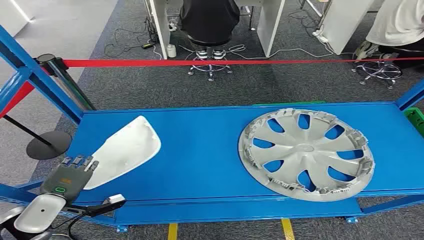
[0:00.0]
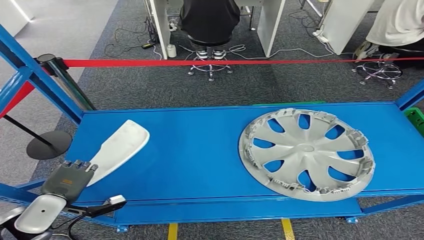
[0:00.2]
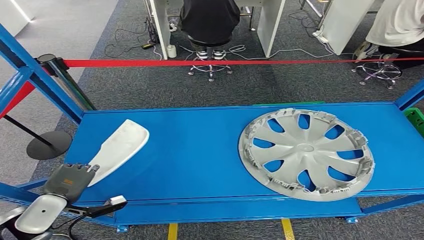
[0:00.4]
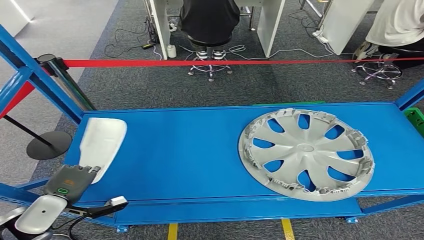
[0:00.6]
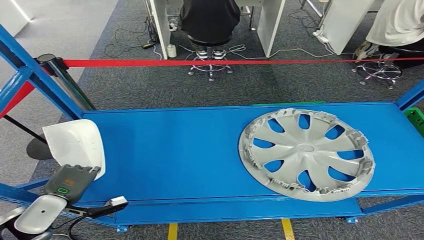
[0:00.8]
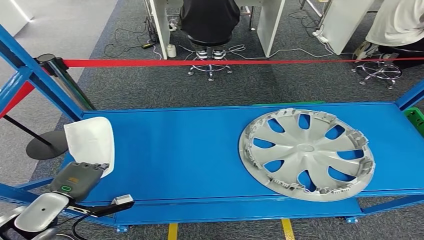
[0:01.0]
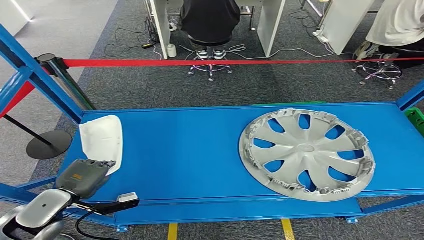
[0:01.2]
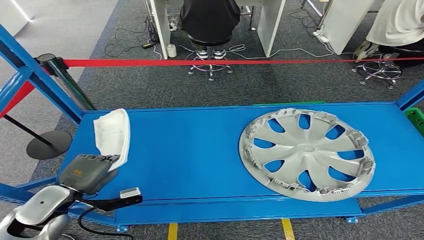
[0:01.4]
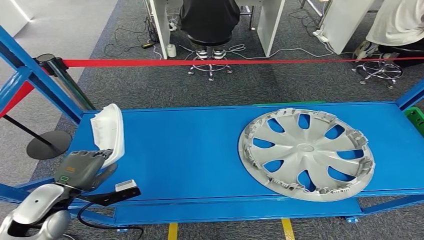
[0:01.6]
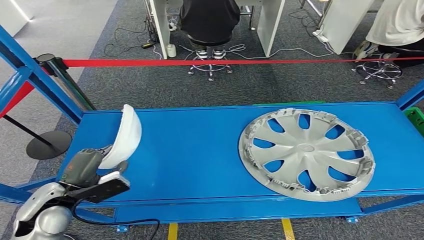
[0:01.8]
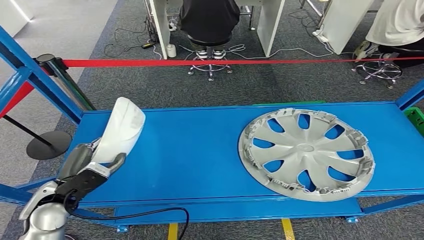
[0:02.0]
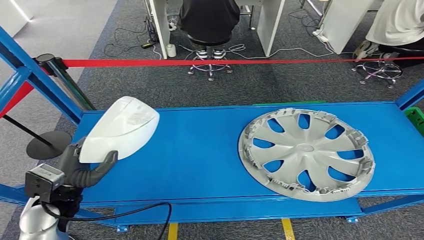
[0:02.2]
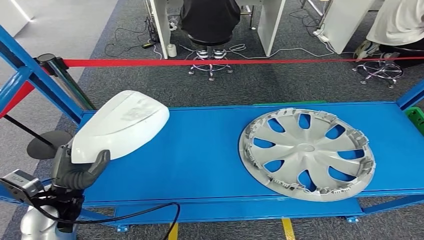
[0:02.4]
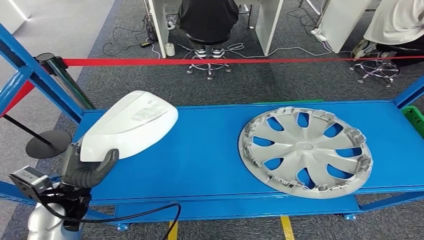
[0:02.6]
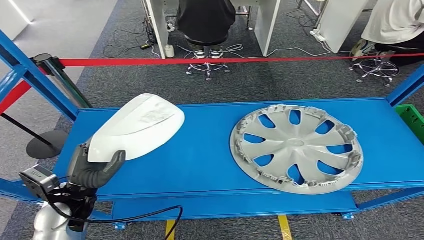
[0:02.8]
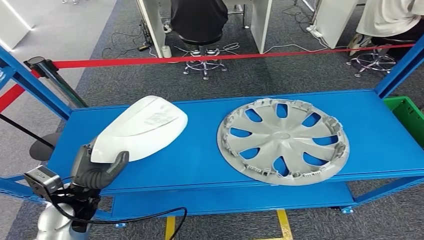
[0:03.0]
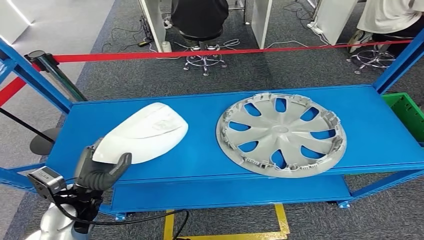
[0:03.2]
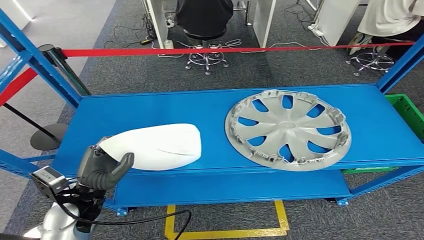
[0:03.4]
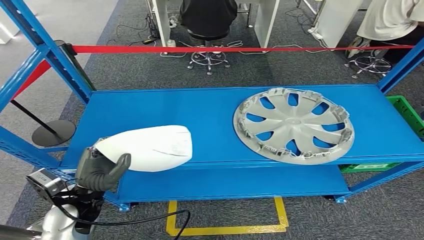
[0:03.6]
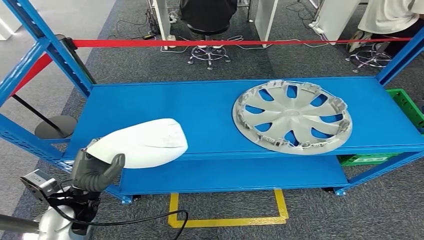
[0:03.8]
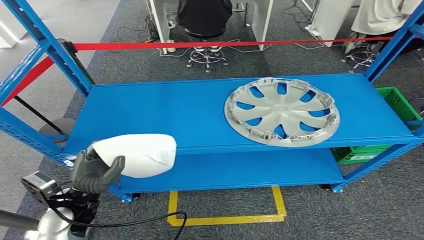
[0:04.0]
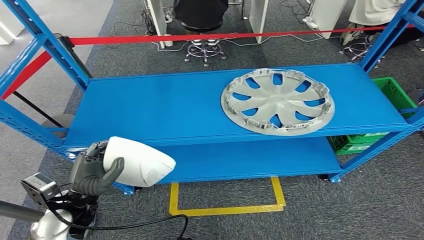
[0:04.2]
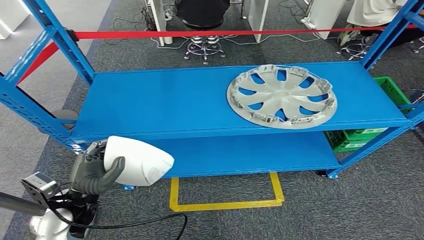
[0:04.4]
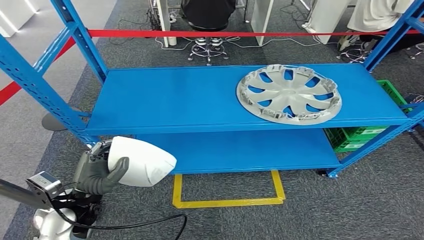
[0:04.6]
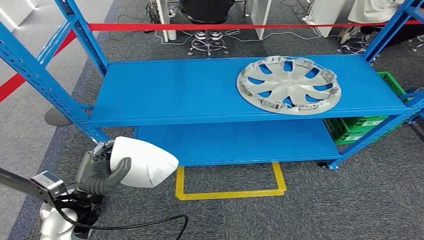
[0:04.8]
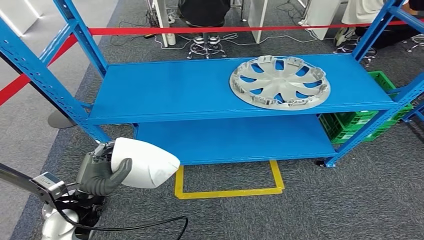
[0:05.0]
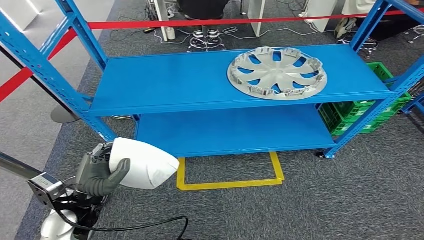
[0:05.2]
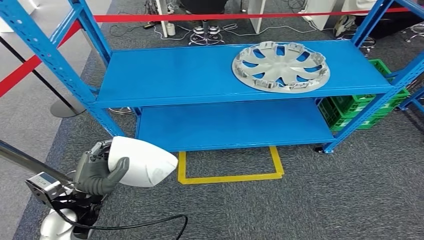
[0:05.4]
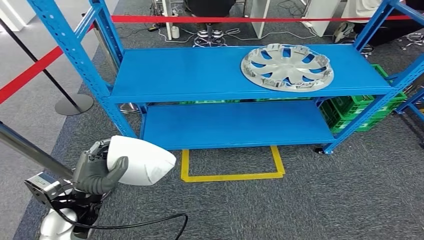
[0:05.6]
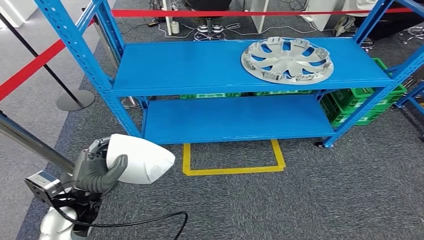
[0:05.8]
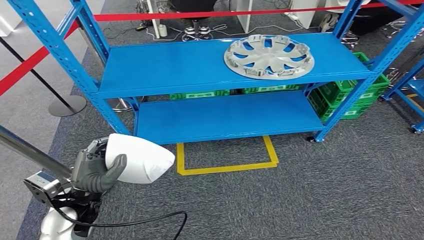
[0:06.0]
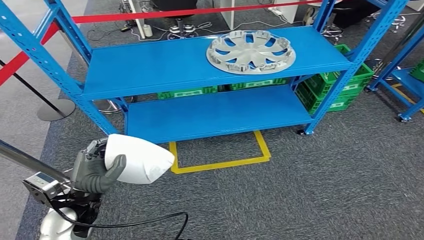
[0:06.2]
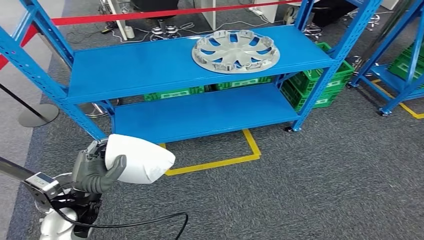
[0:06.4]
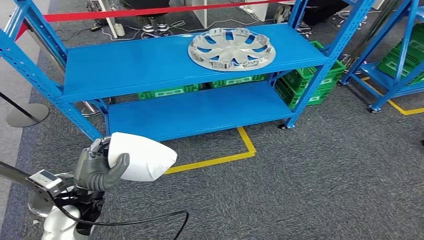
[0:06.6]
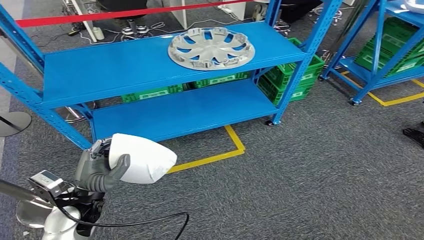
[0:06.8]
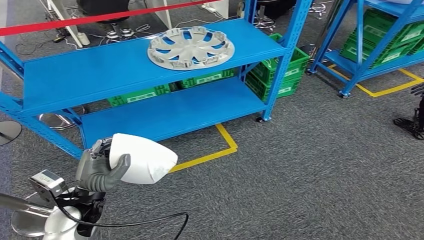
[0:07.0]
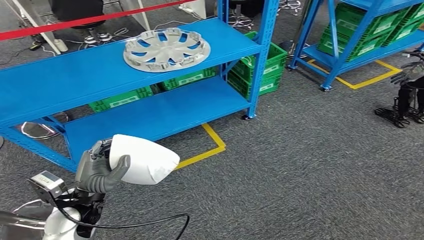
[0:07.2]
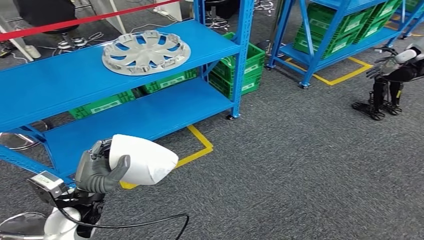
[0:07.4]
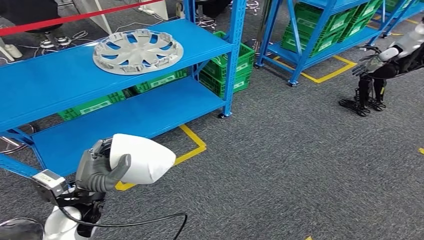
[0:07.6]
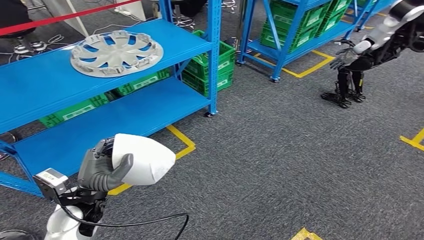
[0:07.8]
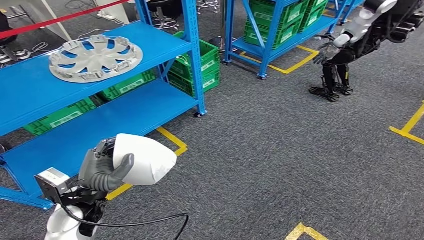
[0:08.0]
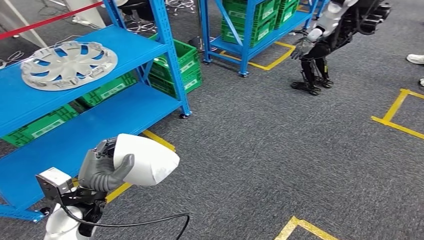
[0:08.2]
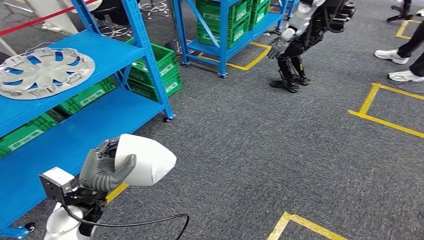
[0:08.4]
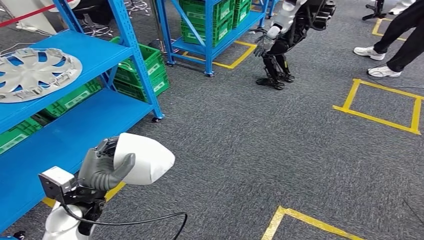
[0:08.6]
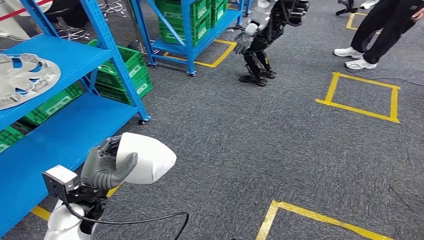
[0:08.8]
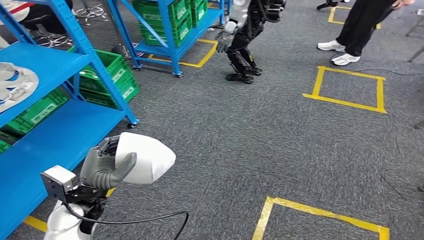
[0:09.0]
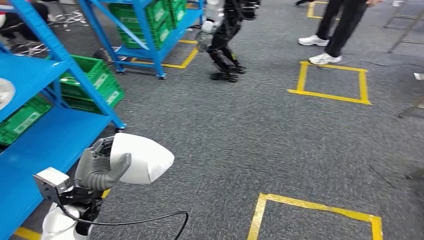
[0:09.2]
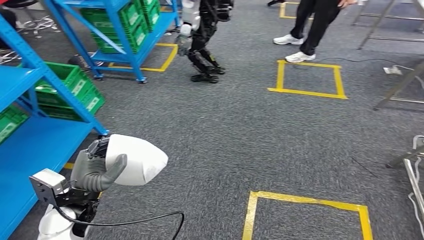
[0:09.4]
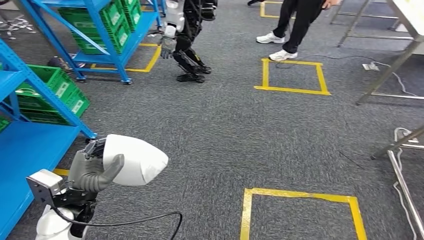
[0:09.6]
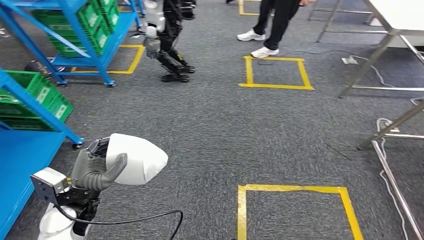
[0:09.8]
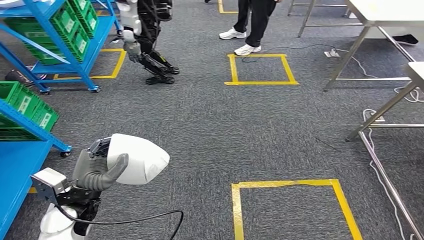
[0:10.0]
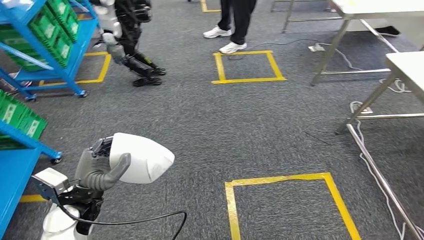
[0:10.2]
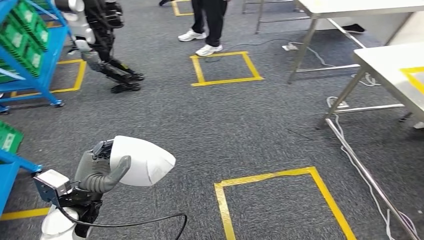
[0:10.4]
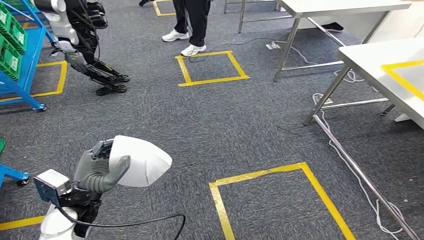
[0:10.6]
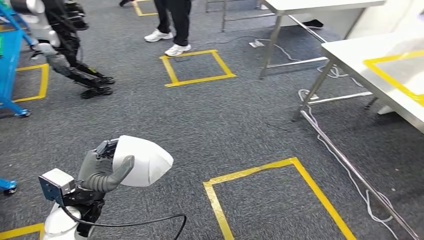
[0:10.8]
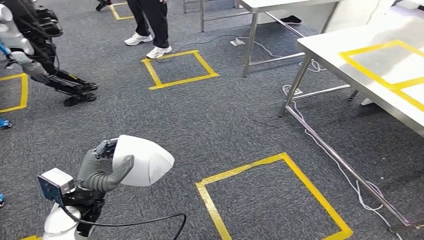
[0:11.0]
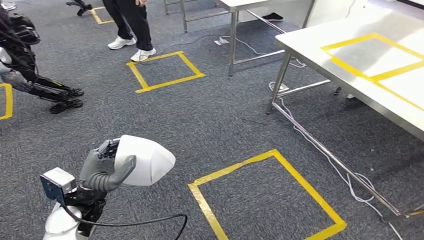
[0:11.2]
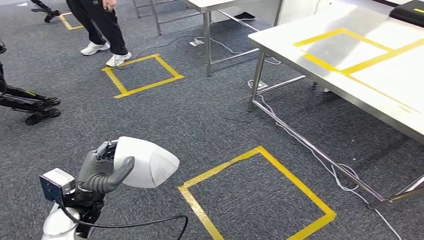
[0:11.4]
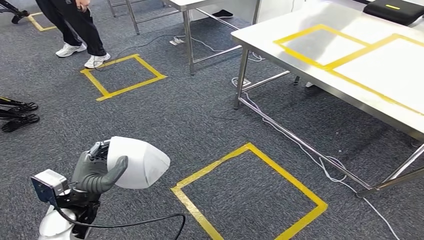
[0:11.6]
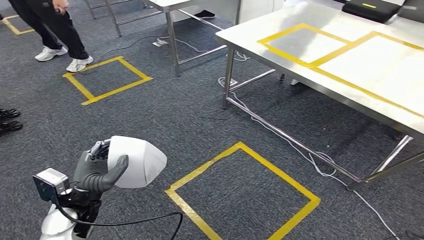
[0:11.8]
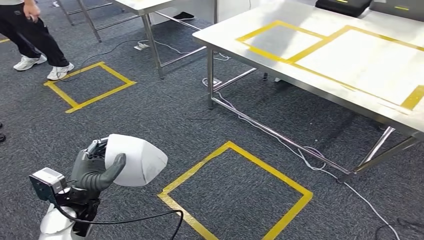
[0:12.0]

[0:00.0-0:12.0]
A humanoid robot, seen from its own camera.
Step, 0:00.0 to 0:04.0: Take small components from the rack.

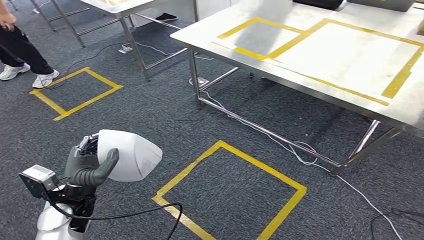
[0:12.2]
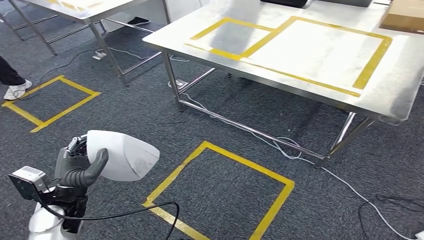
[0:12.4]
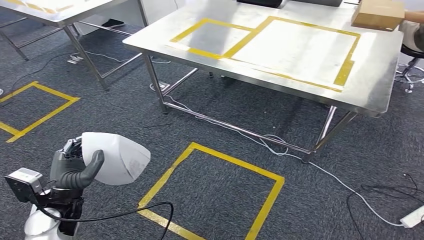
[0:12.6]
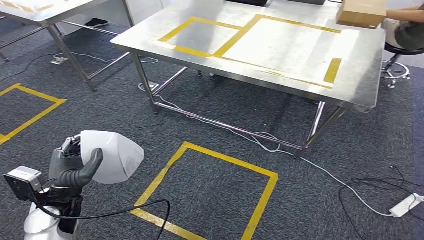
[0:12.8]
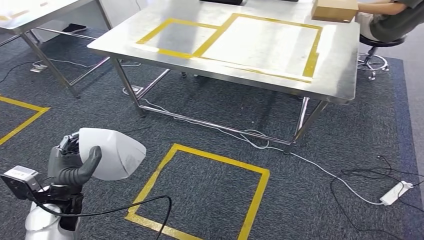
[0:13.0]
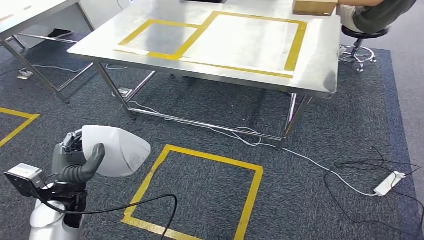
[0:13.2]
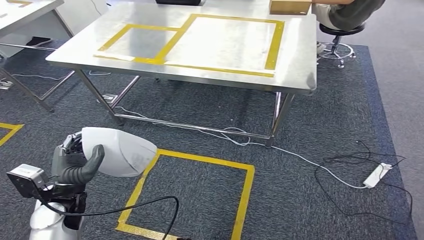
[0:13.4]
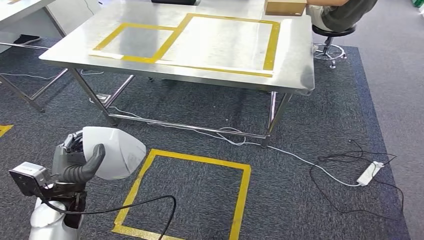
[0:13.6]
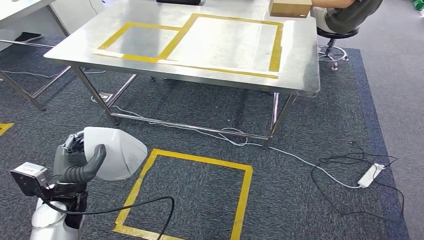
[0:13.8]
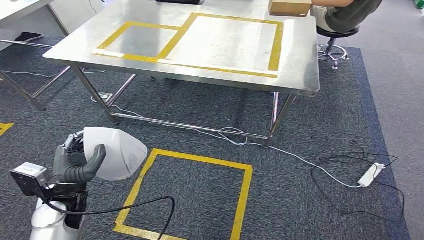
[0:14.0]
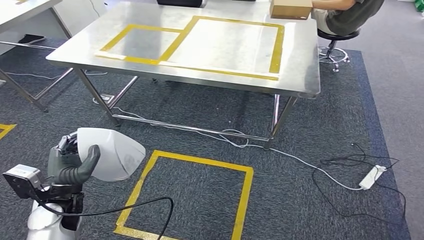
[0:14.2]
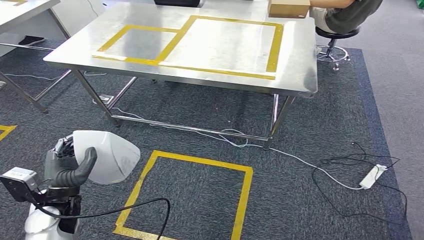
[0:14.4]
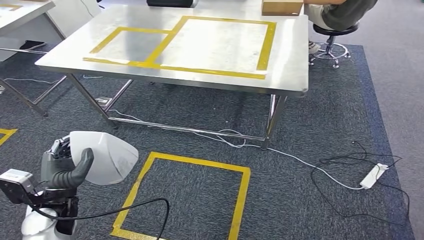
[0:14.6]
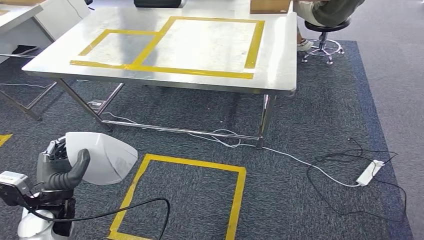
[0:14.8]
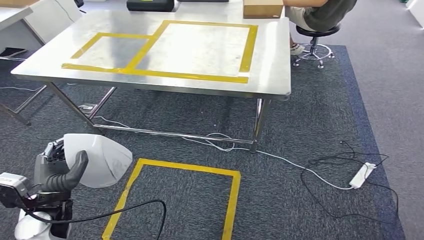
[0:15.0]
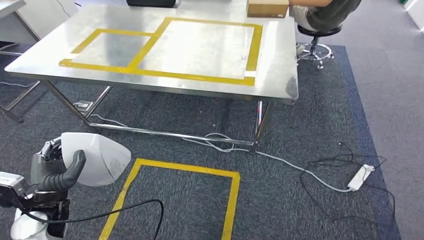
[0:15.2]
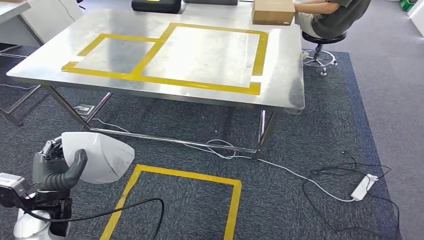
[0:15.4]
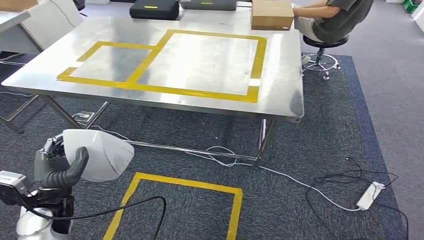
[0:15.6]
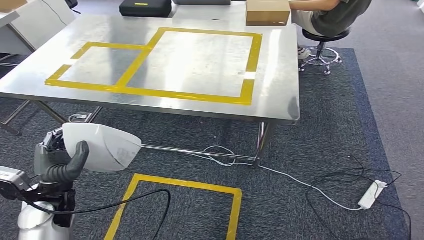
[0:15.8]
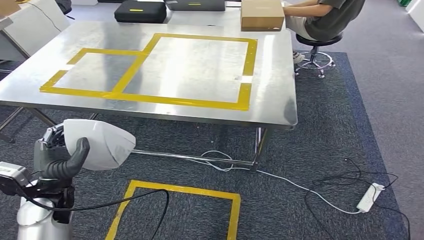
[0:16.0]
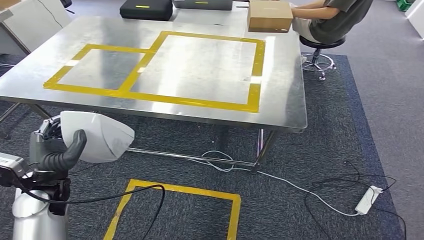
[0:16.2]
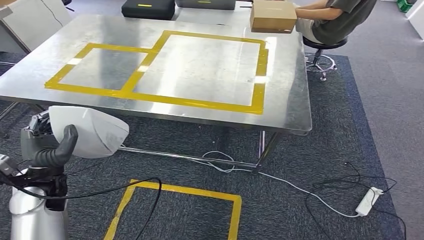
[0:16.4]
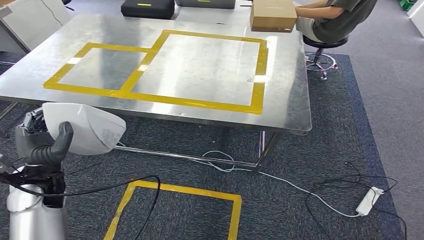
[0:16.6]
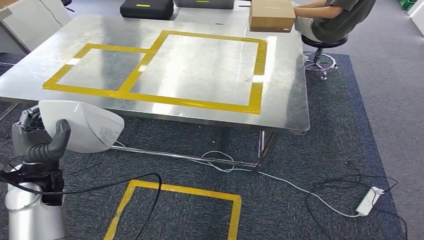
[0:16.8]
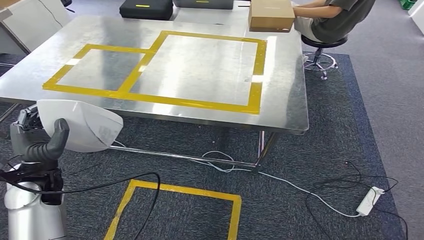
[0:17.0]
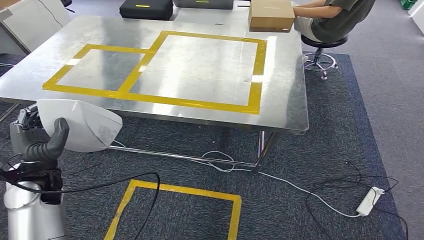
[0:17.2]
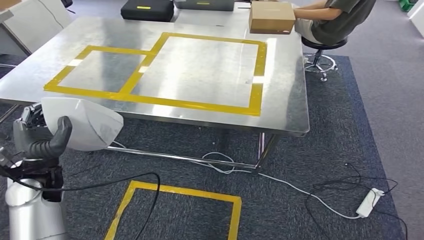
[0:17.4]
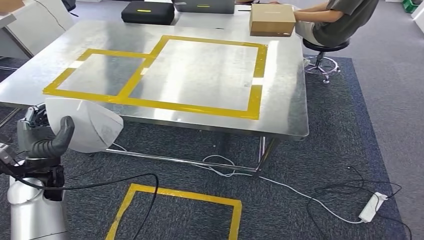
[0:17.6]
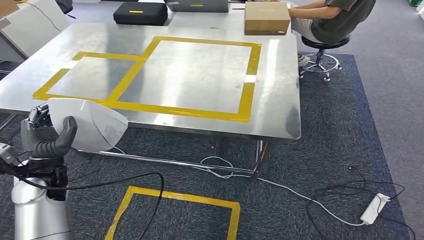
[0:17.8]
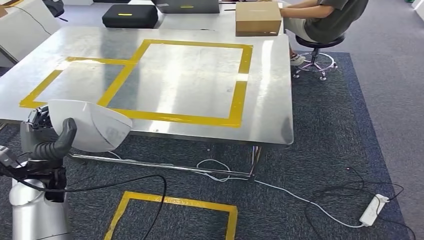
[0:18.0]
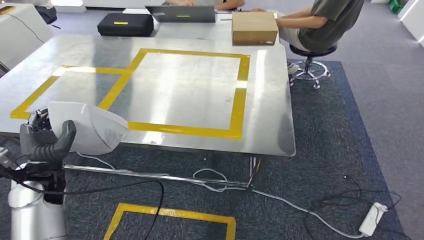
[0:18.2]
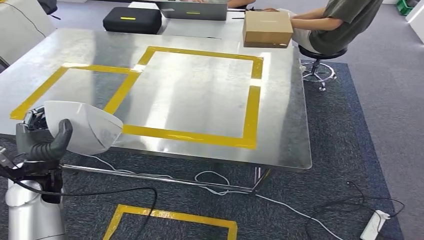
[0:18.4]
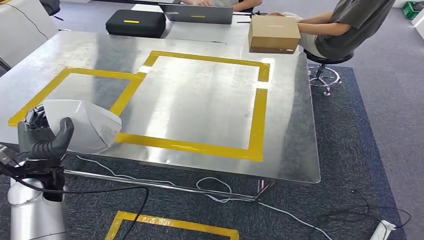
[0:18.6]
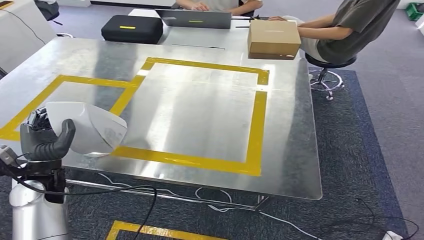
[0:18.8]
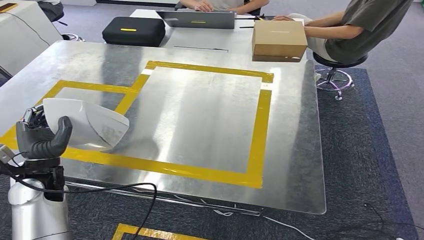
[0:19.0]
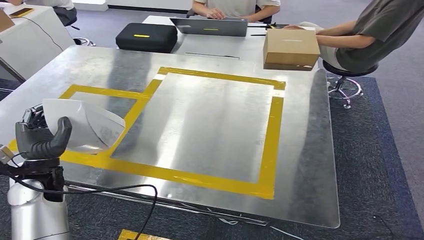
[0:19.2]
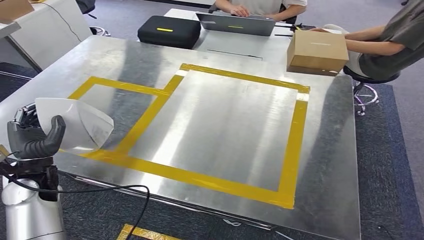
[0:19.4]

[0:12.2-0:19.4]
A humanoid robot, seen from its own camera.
Step, 0:12.2 to 0:18.2: Move the small parts to the workbench.
